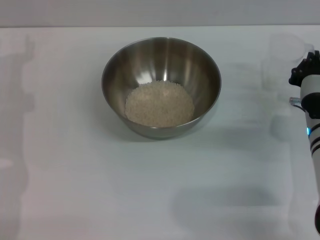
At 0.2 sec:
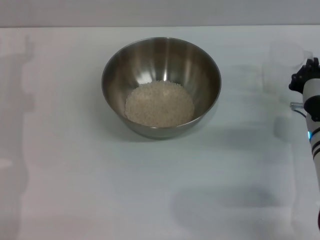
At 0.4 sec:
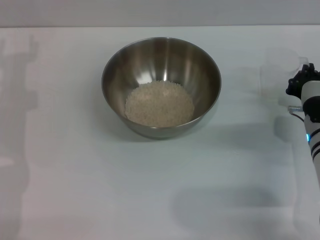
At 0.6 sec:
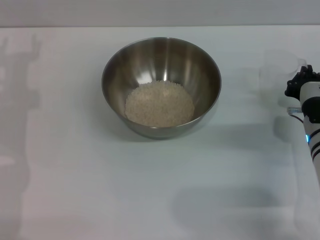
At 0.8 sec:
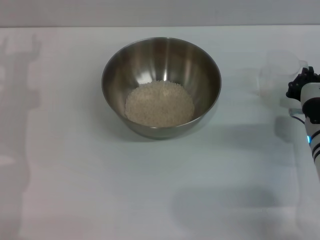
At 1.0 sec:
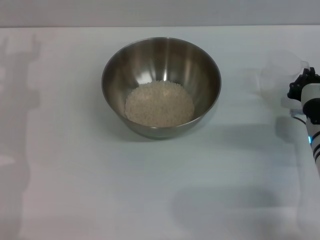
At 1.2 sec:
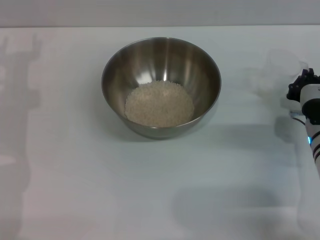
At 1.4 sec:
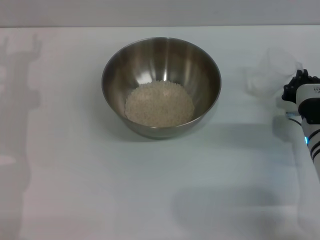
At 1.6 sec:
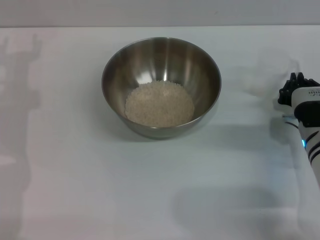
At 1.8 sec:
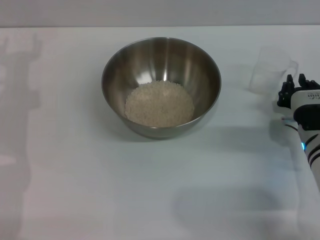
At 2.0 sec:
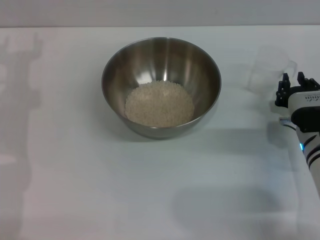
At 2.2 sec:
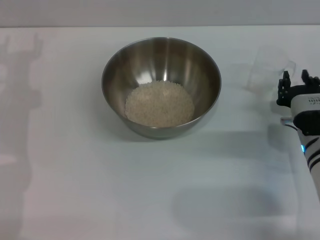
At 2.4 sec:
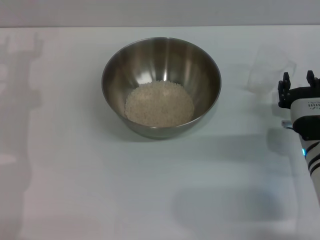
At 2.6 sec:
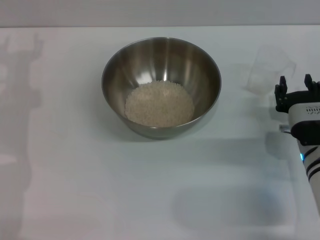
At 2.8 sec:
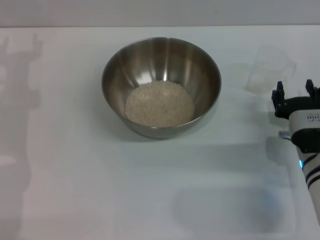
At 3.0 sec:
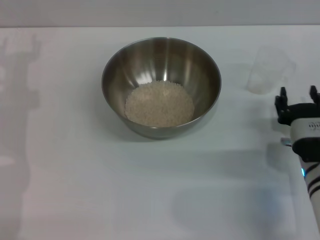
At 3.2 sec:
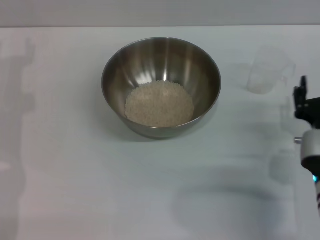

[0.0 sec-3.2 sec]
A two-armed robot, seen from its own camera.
Task of the whole recording: Place the bowl in the middle of the table with one hand and pour the rice from the grain cup into it with the other hand.
Step, 0.0 sec to 2.4 sec: Place the cup on the table with the right gripper.
0.0 sec to 1.6 sec: The grippers move only a little.
1.6 sec to 3.2 sec: The right gripper goes some 10 cm backward, and opens.
